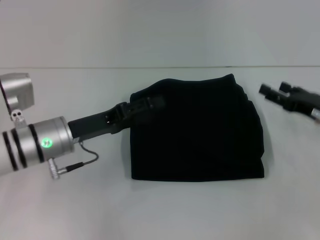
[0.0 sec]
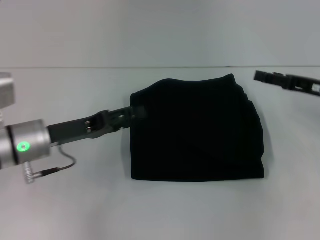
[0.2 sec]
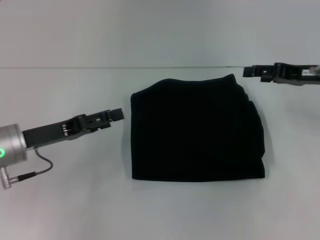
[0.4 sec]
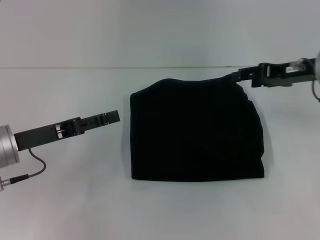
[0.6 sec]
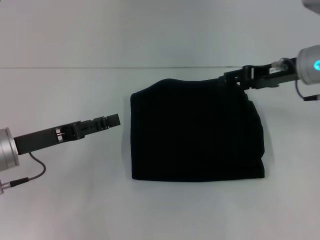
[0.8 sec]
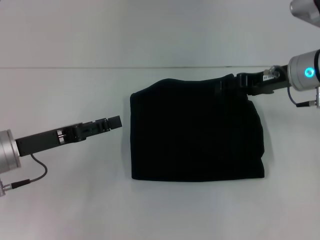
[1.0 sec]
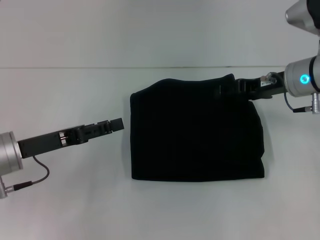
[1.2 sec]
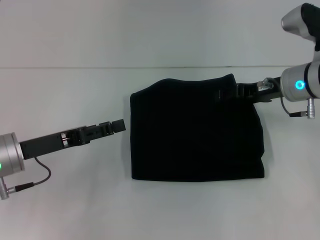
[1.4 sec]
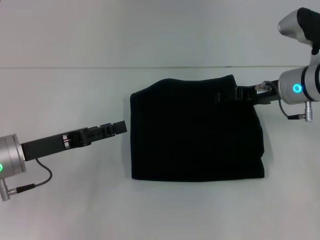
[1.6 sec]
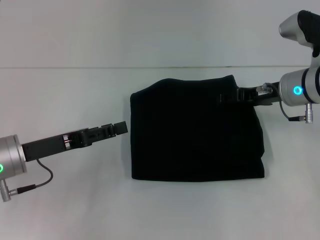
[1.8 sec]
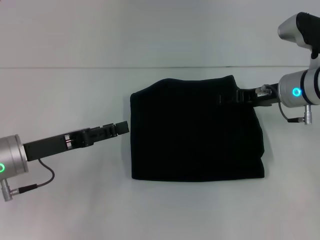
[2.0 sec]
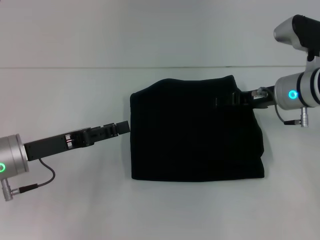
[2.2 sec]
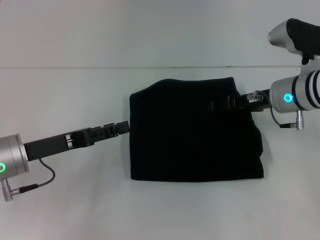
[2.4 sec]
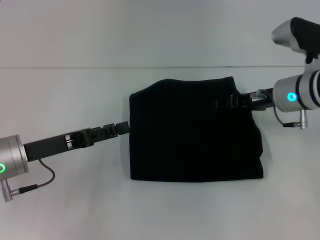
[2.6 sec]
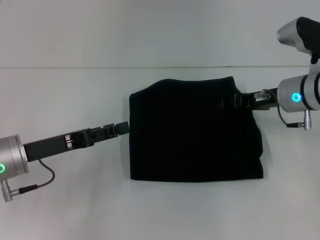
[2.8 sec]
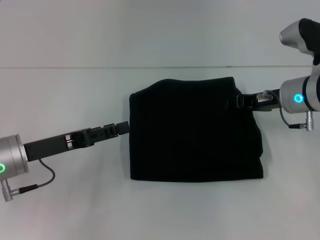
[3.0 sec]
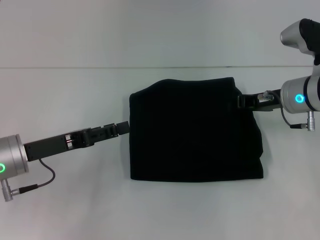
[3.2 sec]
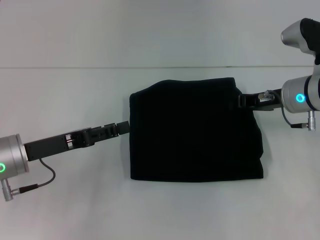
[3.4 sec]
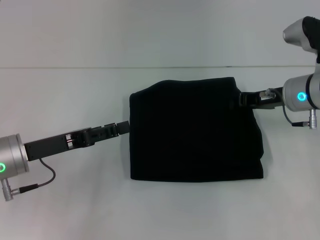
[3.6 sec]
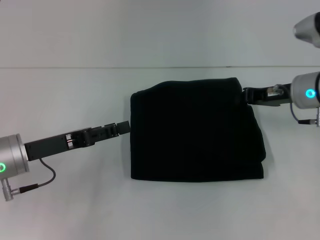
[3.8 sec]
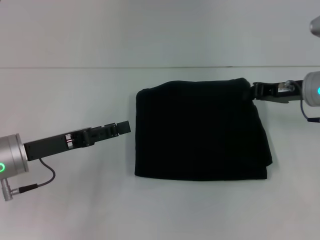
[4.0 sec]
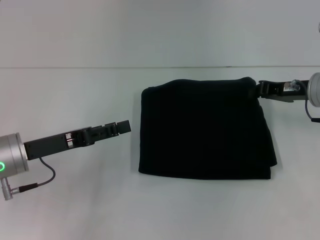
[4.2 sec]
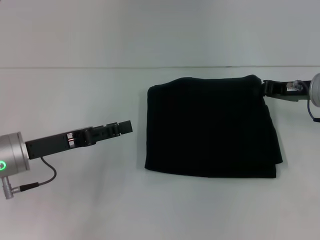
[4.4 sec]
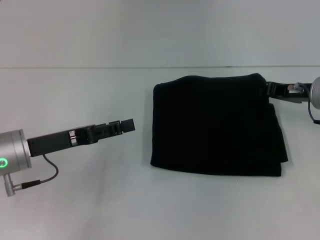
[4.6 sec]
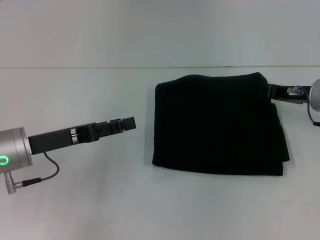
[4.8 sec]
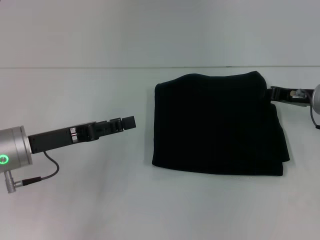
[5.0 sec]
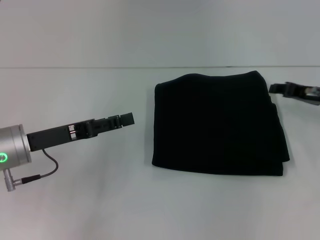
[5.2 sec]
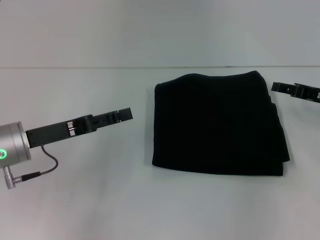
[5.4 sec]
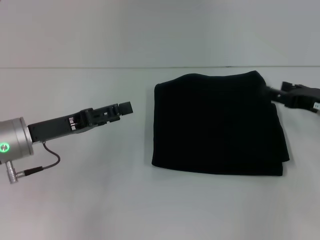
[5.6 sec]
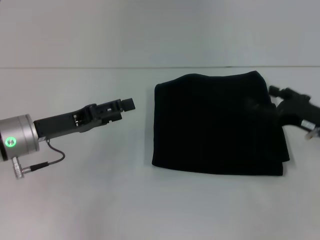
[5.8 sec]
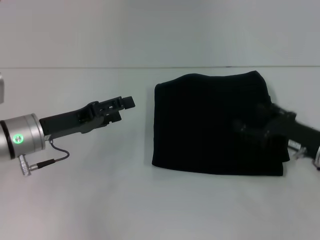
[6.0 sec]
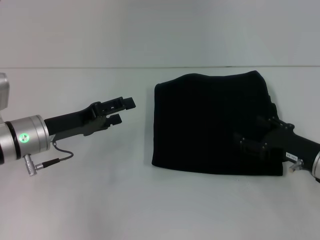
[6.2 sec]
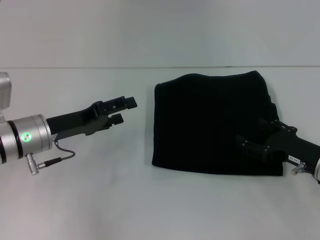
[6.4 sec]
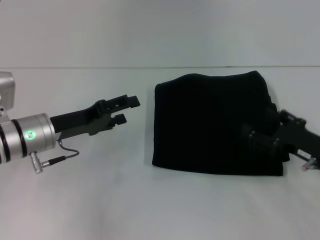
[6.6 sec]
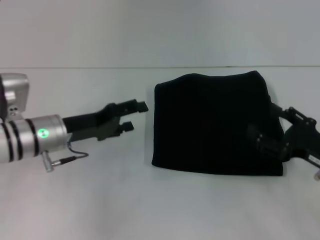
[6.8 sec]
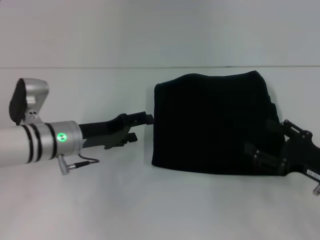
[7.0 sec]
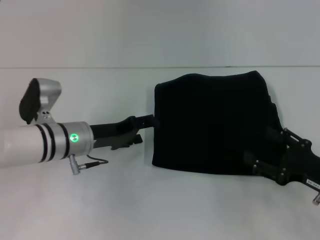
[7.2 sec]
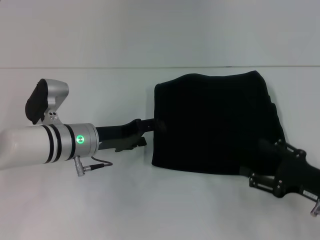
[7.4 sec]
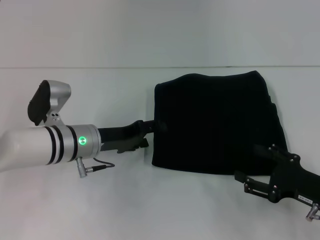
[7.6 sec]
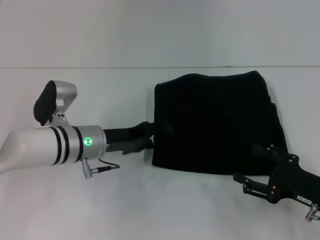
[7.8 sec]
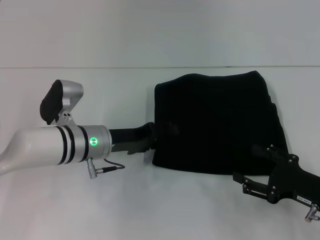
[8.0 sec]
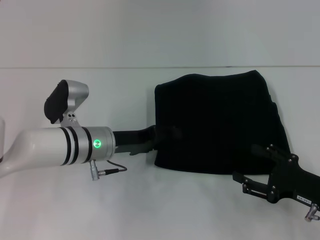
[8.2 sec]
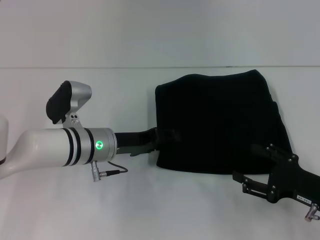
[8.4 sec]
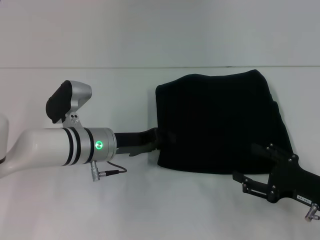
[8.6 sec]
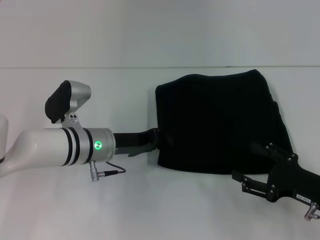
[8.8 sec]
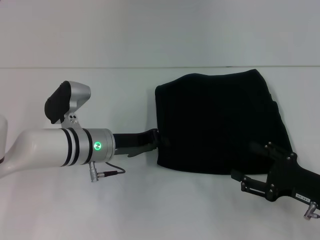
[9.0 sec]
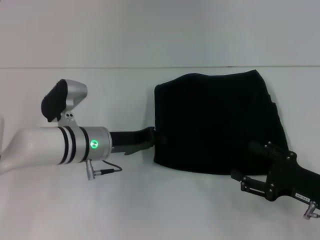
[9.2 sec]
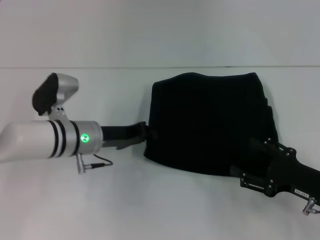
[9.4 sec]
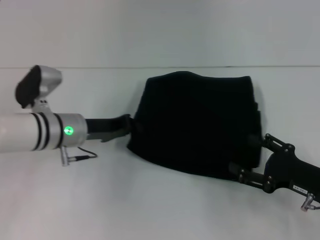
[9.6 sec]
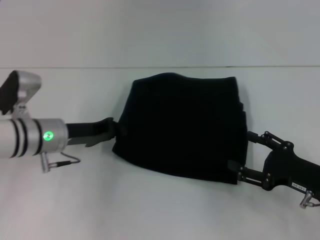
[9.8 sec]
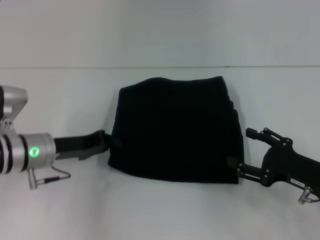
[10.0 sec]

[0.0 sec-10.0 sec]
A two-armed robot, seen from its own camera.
0.0 sec to 1.4 sec: The right gripper is displaced forward, to the left and upward by roughly 15 cm. Meanwhile the left gripper goes about 5 cm to the left.
1.4 sec to 2.8 sec: The grippers stay close to where they were, moving slightly.
2.8 sec to 4.2 sec: The right gripper closes up.
4.2 sec to 5.8 sec: The right gripper is displaced backward by approximately 10 cm, and opens up.
5.8 sec to 7.2 sec: The left gripper moves to the right, about 5 cm. The right gripper goes roughly 5 cm backward.
7.2 sec to 8.6 sec: The grippers make only small movements.
8.6 sec to 10.0 sec: The left gripper is displaced to the left by roughly 10 cm, and closes its fingers.

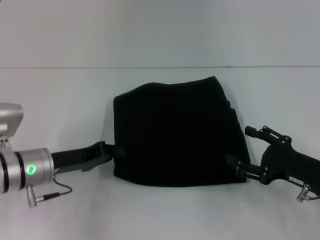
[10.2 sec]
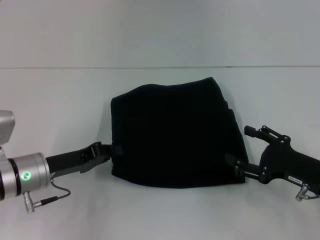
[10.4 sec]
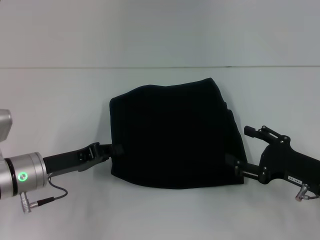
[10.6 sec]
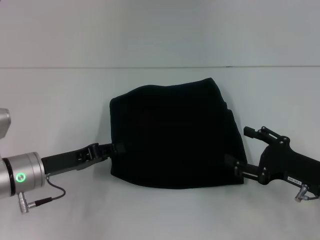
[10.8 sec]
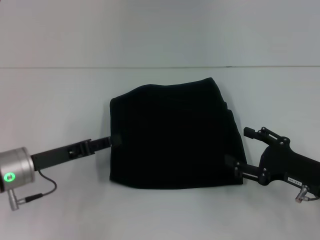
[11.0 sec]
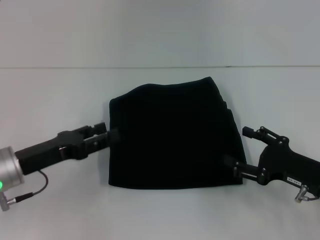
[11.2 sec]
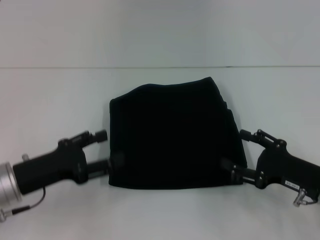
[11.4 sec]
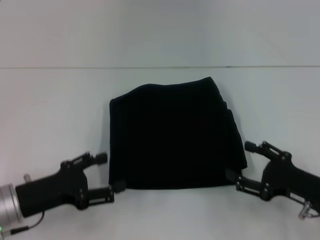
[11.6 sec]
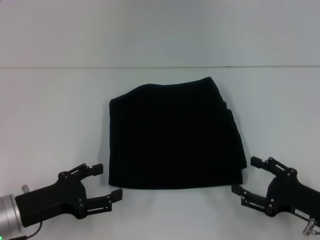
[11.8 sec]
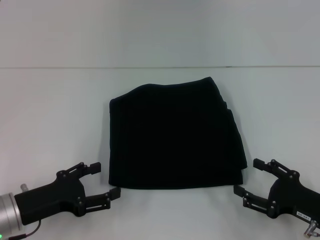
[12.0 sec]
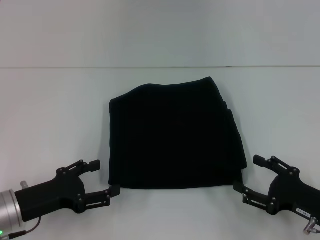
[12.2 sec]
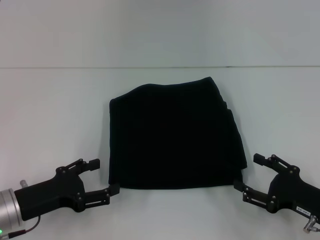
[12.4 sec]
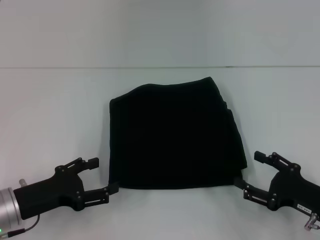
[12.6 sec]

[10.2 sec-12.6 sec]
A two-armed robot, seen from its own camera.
10.2 sec to 11.4 sec: The left gripper shifts approximately 5 cm backward, and opens its fingers.
11.4 sec to 12.6 sec: The left gripper opens.
